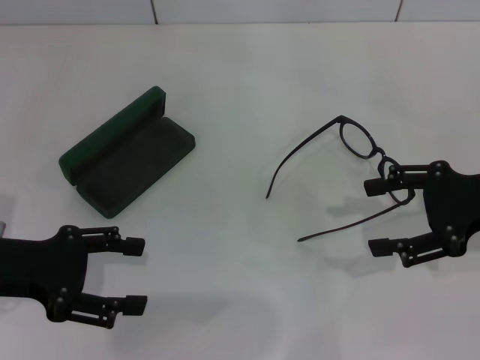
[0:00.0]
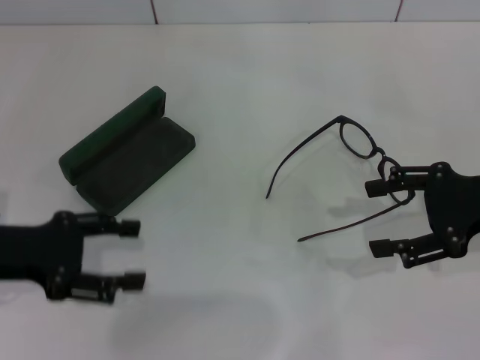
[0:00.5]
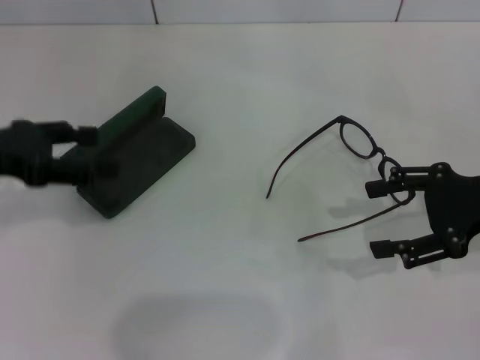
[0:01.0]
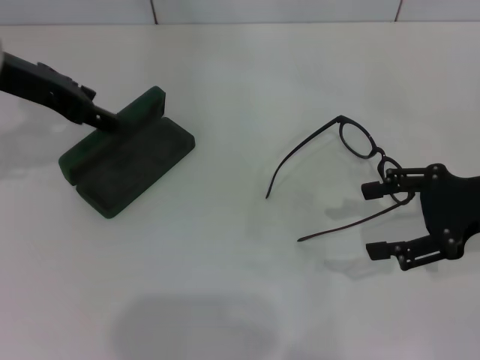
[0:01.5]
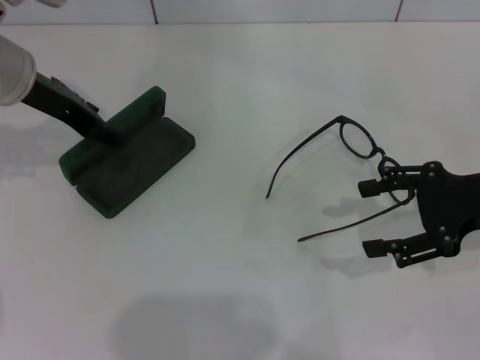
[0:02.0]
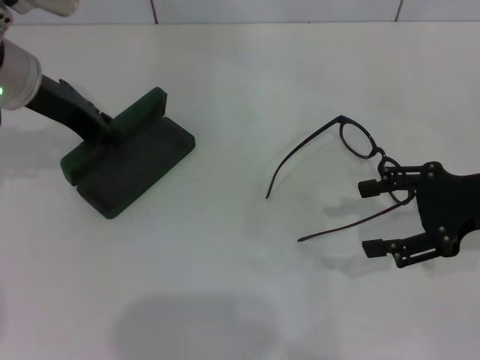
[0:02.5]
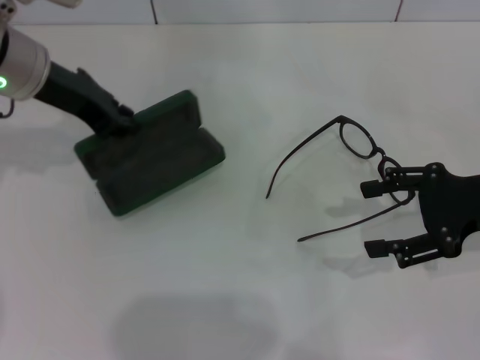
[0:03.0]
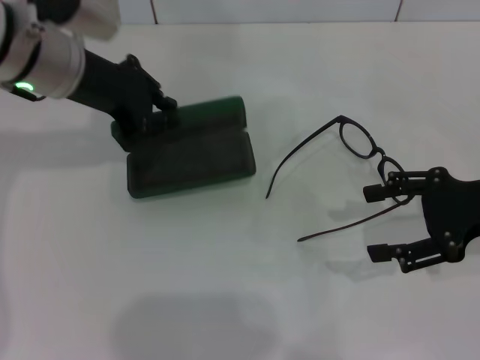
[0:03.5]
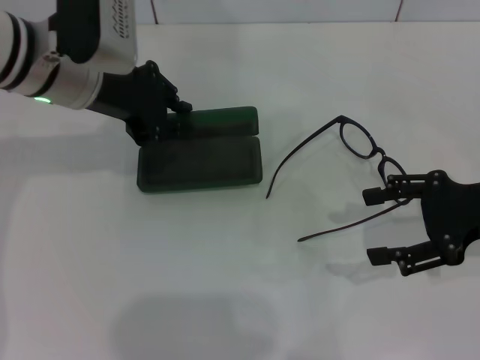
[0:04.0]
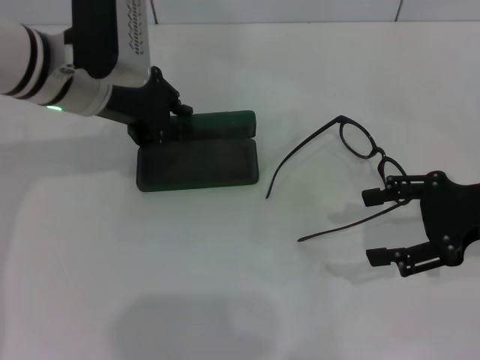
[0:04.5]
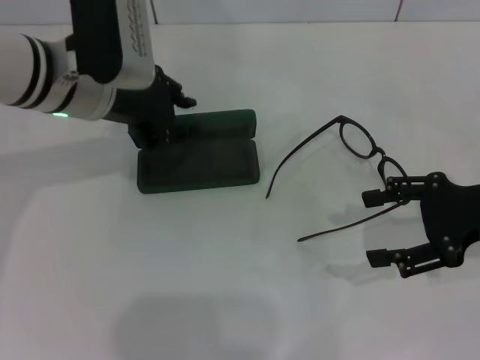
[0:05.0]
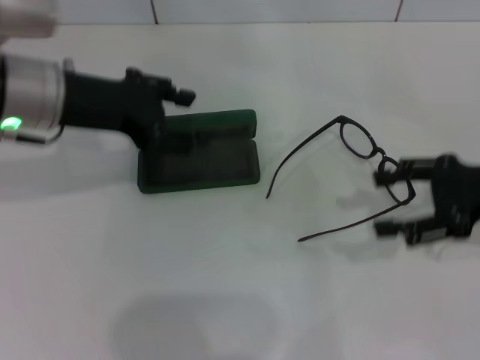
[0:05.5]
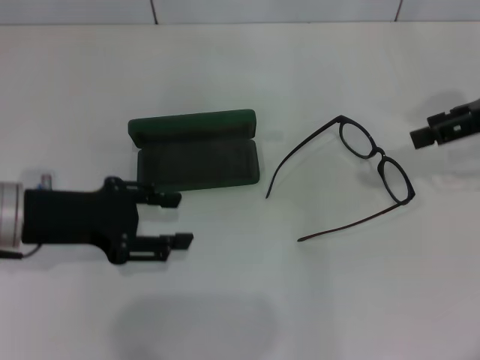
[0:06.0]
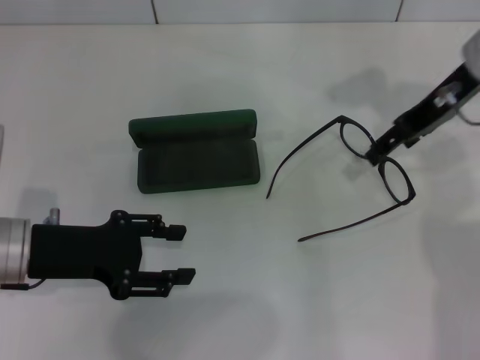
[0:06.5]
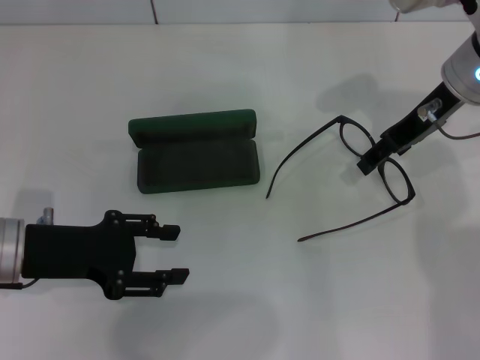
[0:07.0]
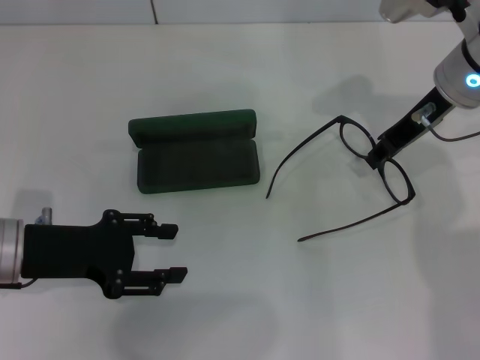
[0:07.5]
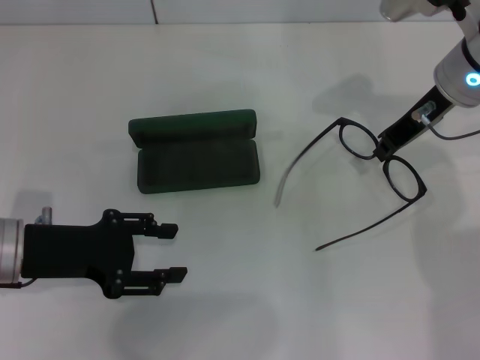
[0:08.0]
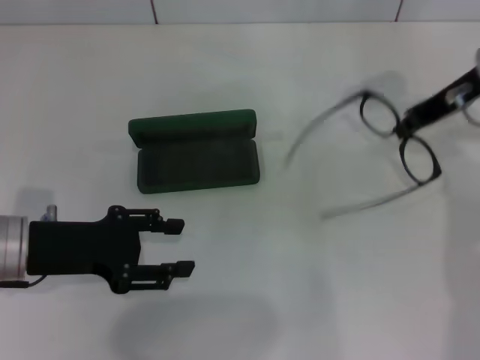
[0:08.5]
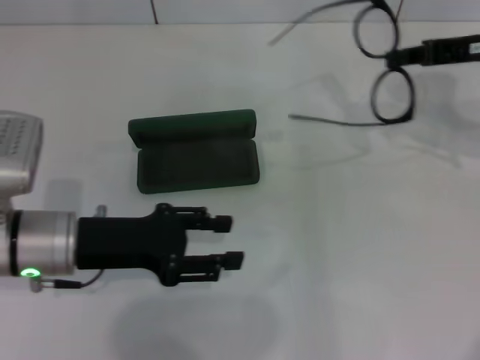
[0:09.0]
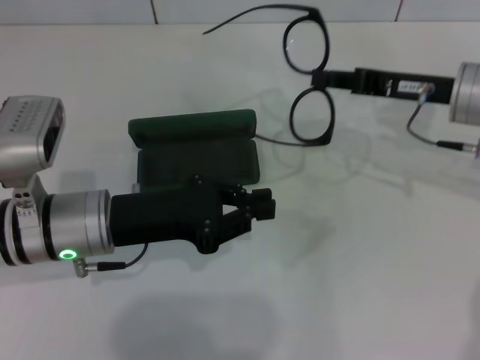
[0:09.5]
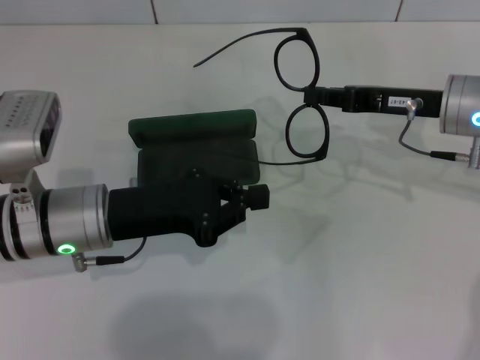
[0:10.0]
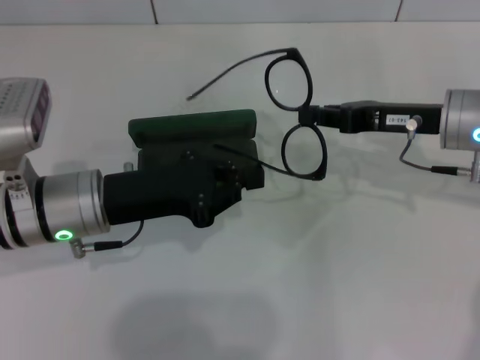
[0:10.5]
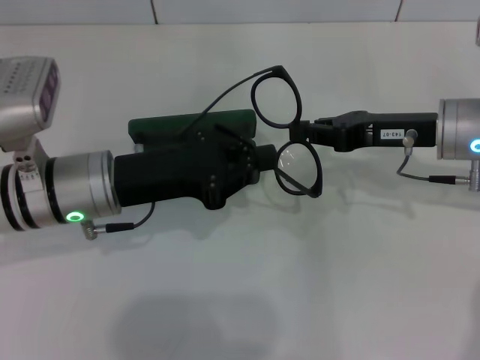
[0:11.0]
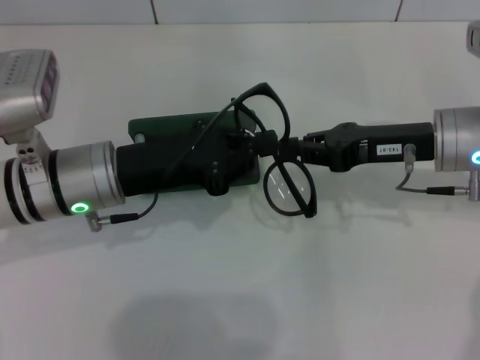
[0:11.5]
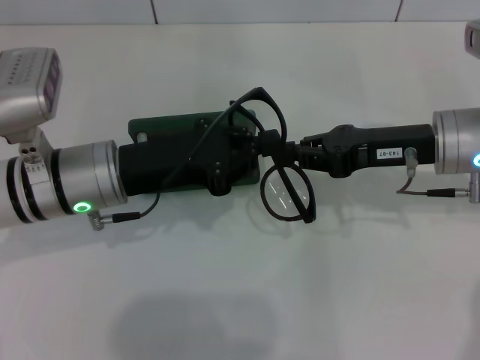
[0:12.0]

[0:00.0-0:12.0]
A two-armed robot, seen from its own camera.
Step, 0:00.0 to 0:02.5: Grab the glasses case with your left hand.
Step, 0:03.0 to 0:04.5: Place the glasses case in the center of the table with your left hand.
Step, 0:05.0 to 0:07.5: Grab the eyeglass frame with your right hand.
0:00.0 to 0:02.0: The left gripper moves forward, upward and to the right, roughly 20 cm.
0:02.0 to 0:04.0: The left gripper moves to the right, roughly 5 cm, and closes up.
0:04.0 to 0:06.0: The right gripper moves upward and forward, some 10 cm. The left gripper moves backward, to the left and downward, some 15 cm, and opens up.
0:06.0 to 0:08.0: The right gripper moves to the left, roughly 10 cm, and closes its fingers.
0:08.0 to 0:10.0: The right gripper goes to the right and returns, about 10 cm each way, while the left gripper heads to the right, covering roughly 5 cm, and closes its fingers.

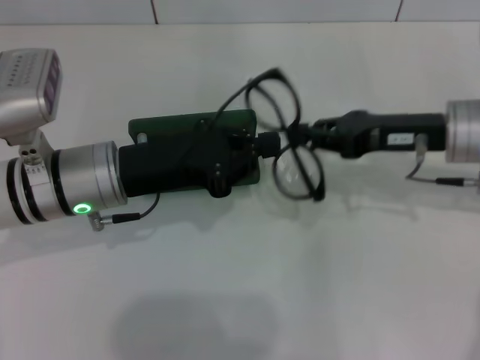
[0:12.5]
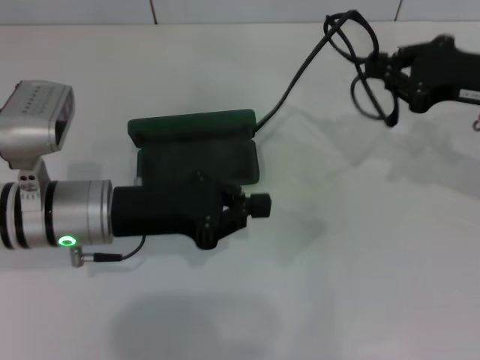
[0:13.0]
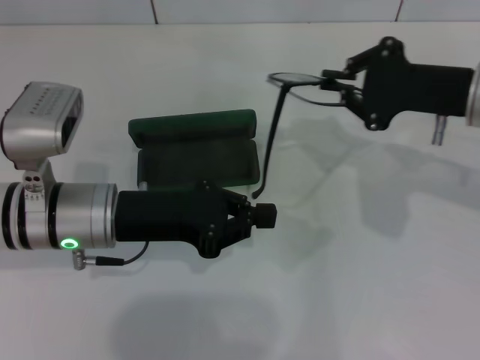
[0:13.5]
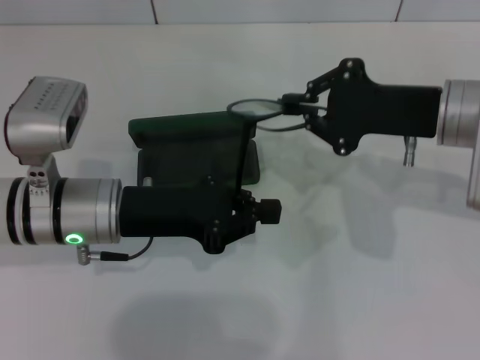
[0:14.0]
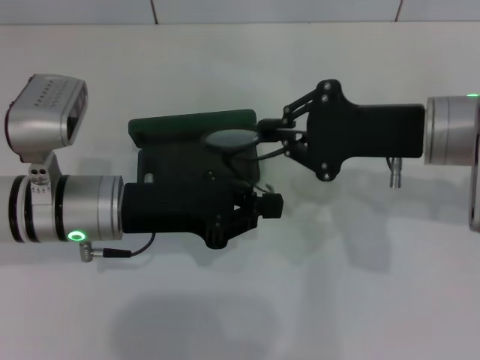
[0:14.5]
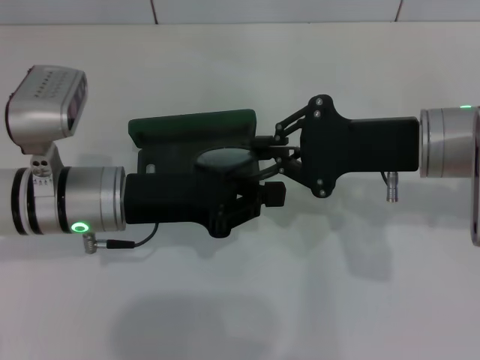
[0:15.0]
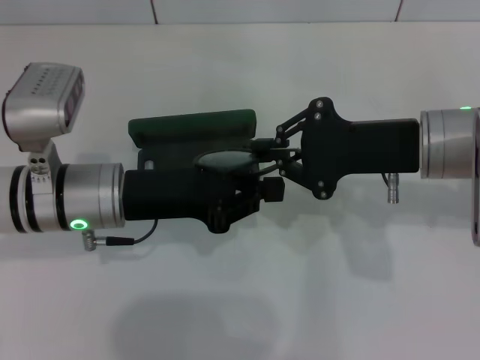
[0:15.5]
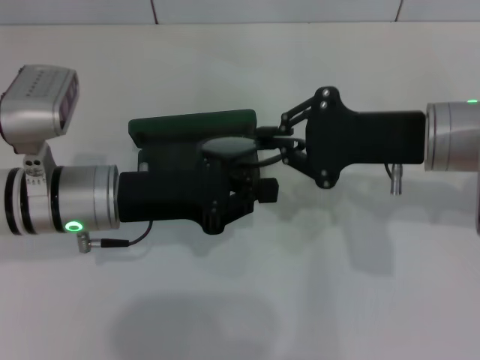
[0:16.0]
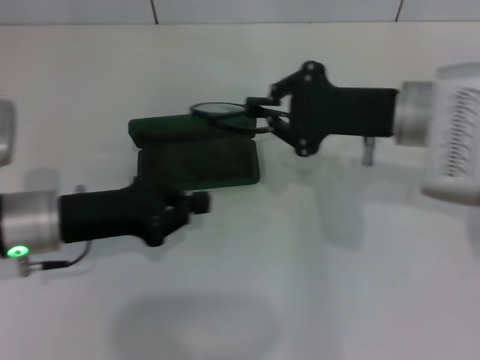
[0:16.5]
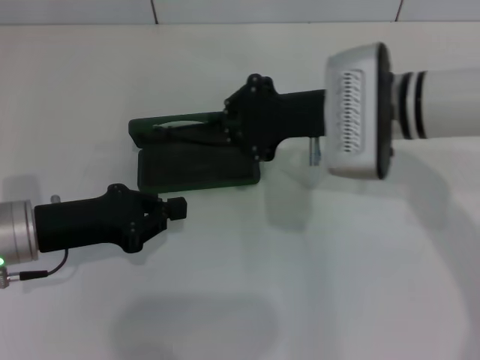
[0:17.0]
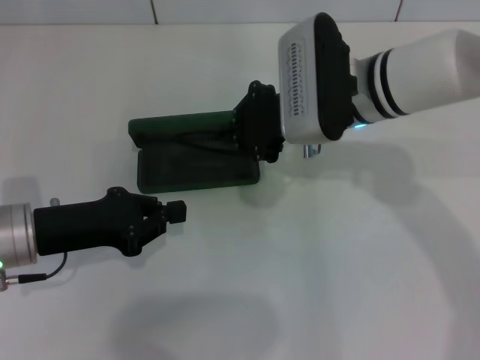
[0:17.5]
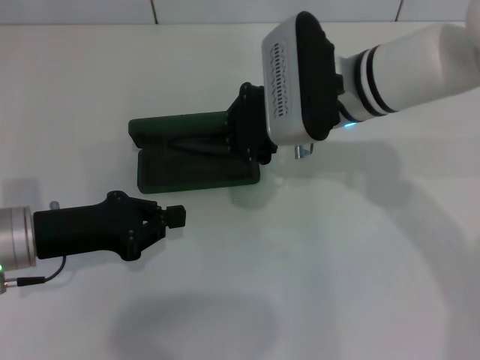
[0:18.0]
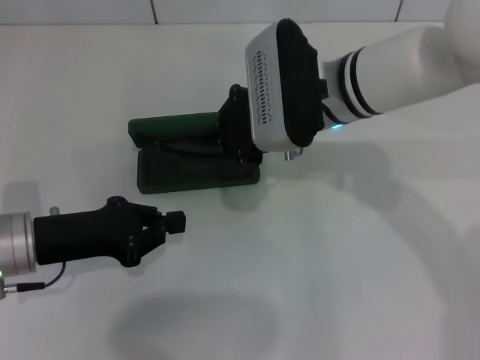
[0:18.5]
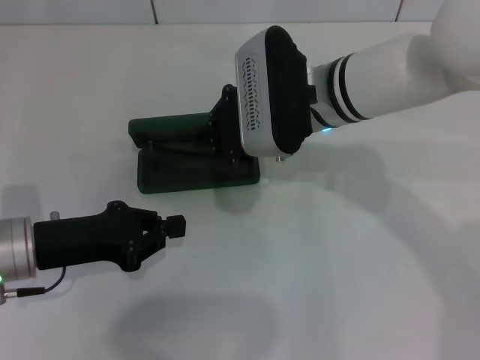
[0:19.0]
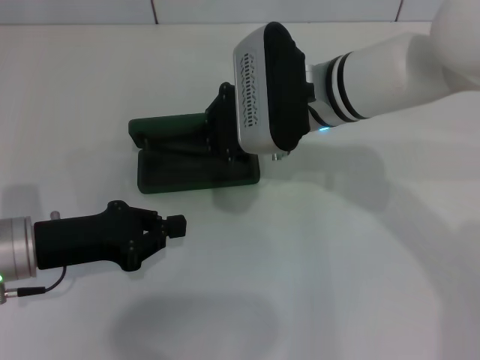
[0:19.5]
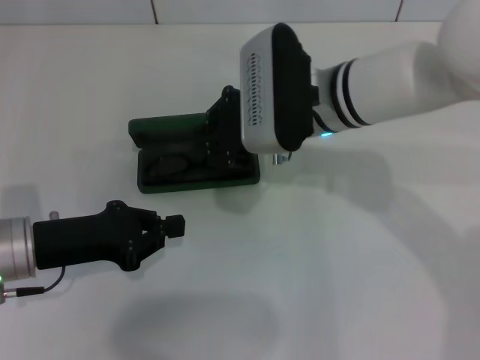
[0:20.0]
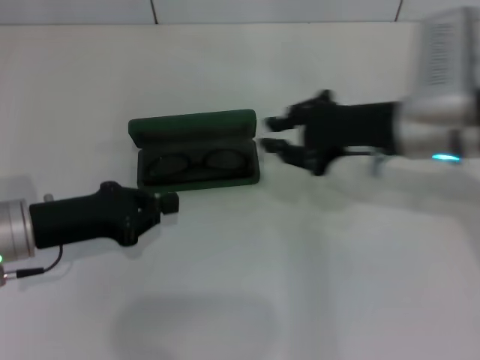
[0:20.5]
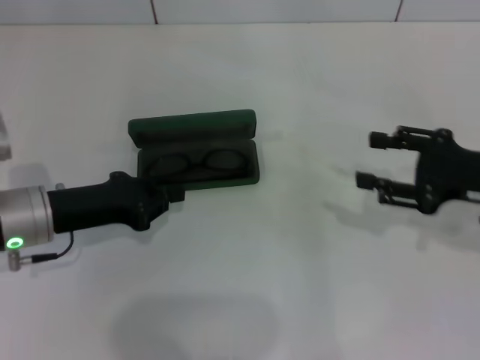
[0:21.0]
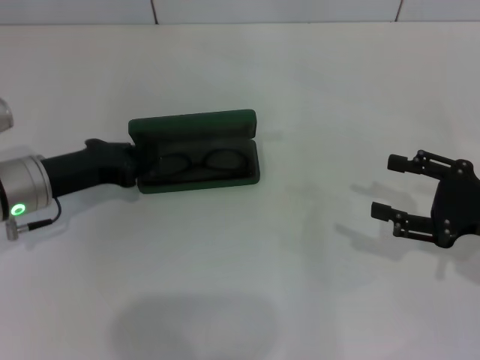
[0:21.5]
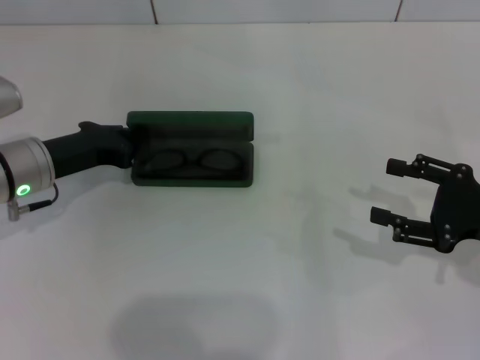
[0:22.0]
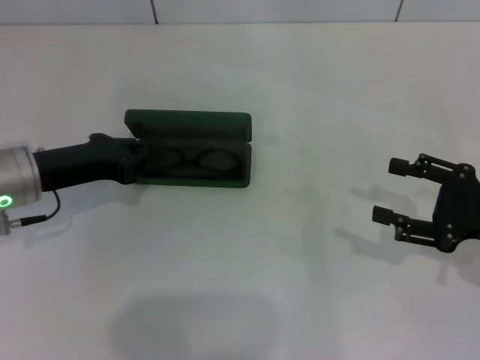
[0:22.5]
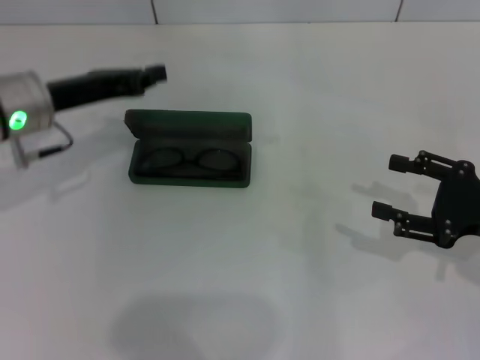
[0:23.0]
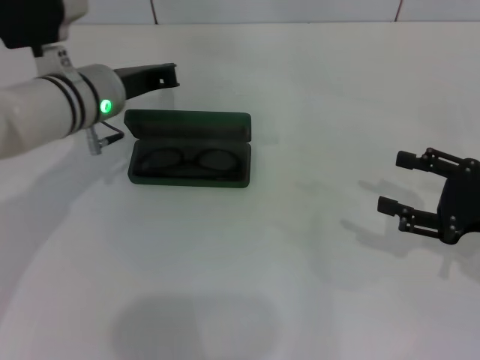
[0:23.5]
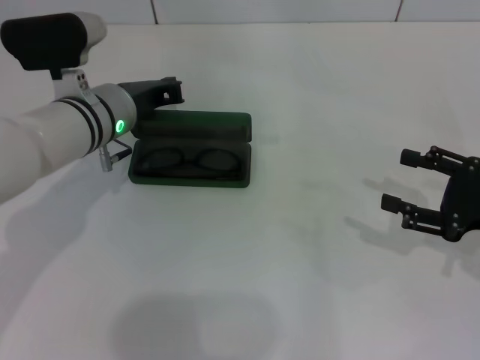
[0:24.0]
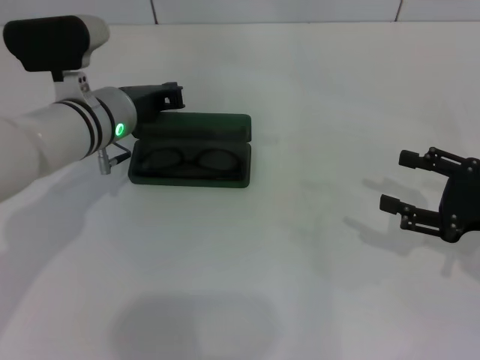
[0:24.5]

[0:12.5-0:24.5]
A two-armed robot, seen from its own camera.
Step, 0:12.5 to 0:15.5: Fold the frame with your left hand.
Step, 0:16.0 to 0:19.5: Put the glasses into the case with your right hand.
0:14.5 to 0:16.5: The left gripper shifts about 5 cm to the left.
0:16.5 to 0:18.5: The right gripper is displaced to the left by roughly 10 cm.
0:18.5 to 0:20.5: The right gripper is displaced to the right by about 10 cm.
0:20.5 to 0:22.5: The right gripper heads to the right, backward and downward, covering approximately 15 cm, and opens up.
0:22.5 to 0:24.5: The left gripper goes about 10 cm to the right and forward.

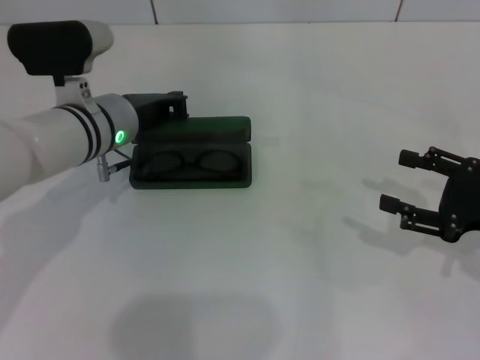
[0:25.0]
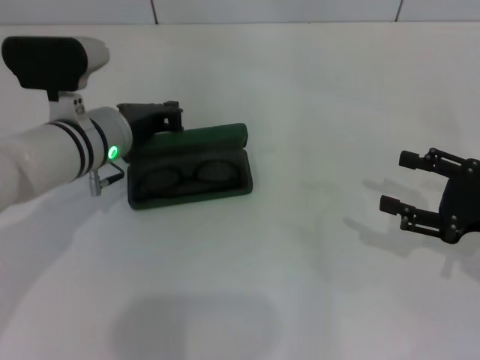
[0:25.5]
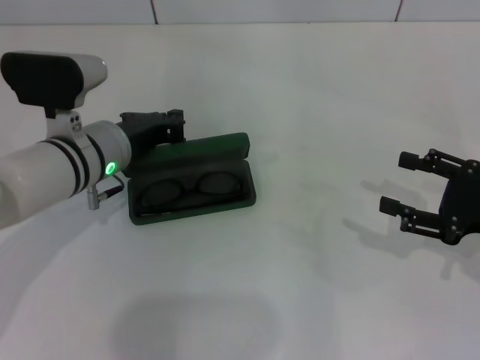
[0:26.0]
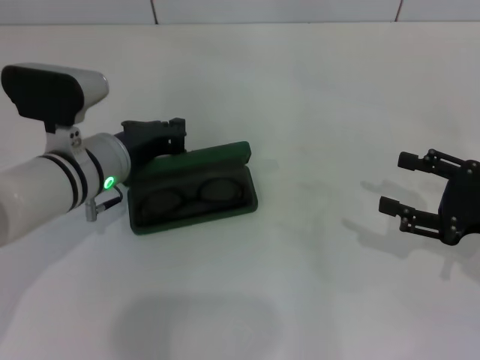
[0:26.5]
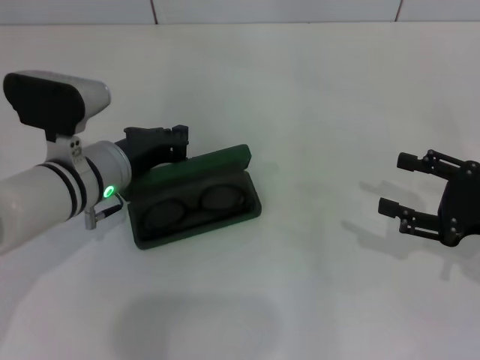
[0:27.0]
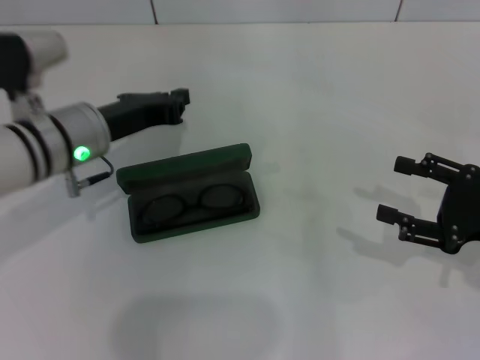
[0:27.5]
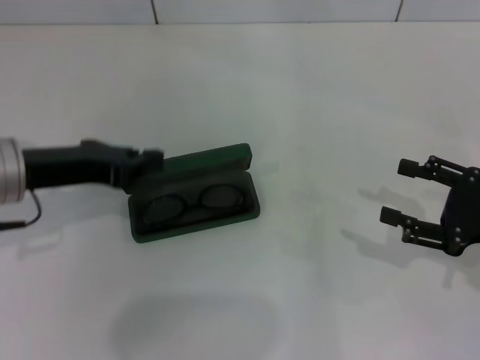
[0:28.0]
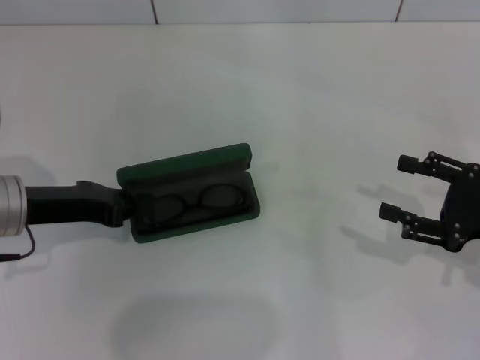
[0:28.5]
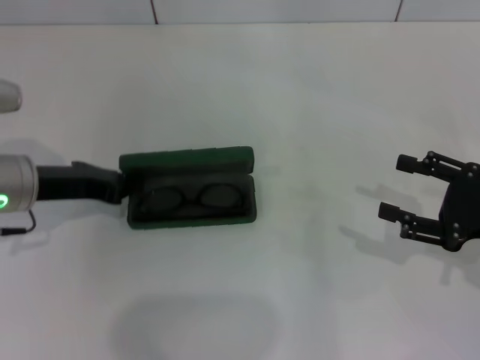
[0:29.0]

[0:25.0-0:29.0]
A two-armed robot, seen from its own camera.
0:25.0 to 0:27.0: The left gripper shifts by roughly 5 cm.
0:27.0 to 0:29.0: The left gripper travels to the left by some 10 cm.
